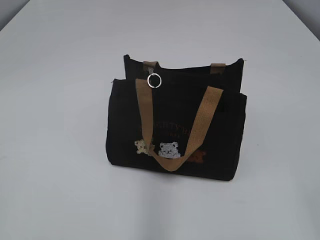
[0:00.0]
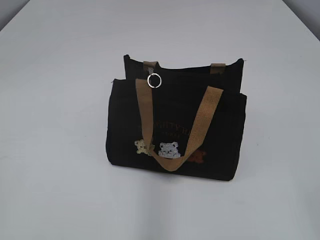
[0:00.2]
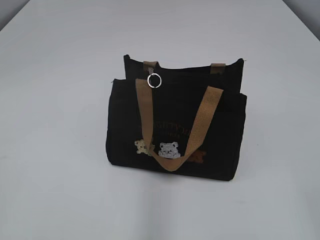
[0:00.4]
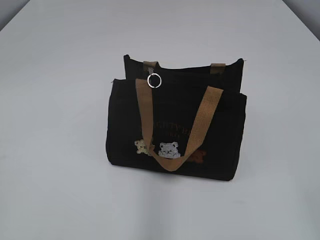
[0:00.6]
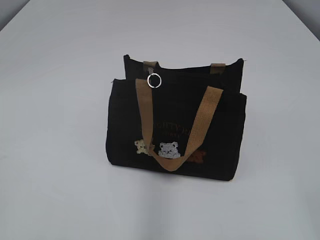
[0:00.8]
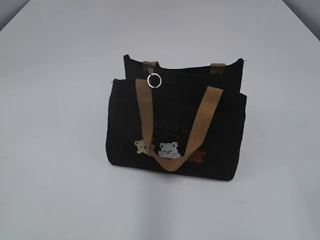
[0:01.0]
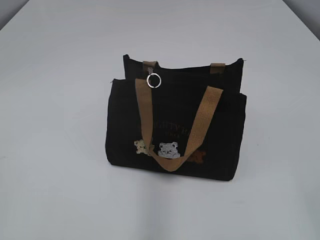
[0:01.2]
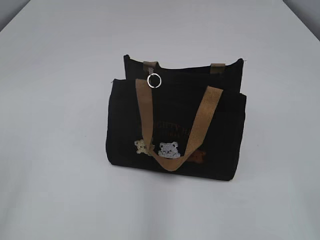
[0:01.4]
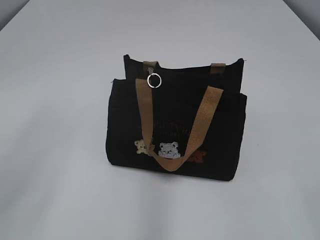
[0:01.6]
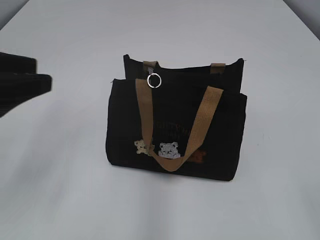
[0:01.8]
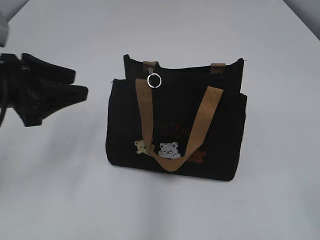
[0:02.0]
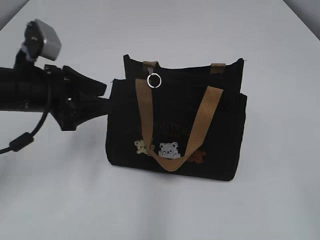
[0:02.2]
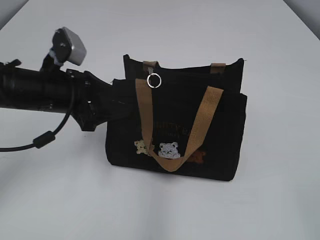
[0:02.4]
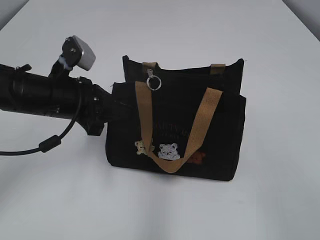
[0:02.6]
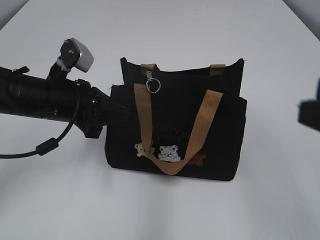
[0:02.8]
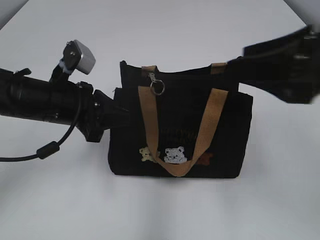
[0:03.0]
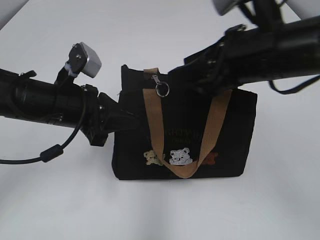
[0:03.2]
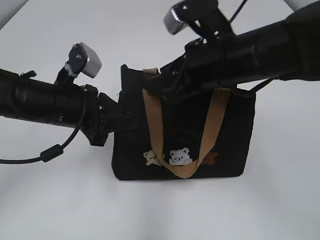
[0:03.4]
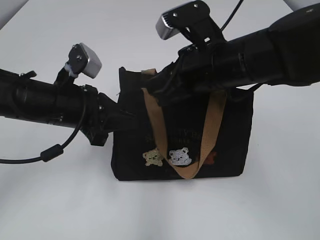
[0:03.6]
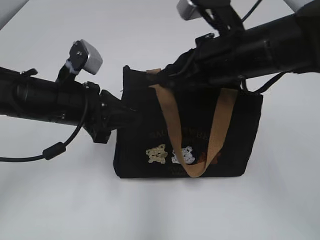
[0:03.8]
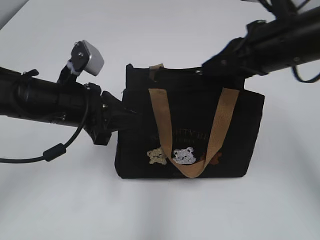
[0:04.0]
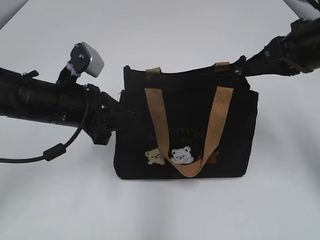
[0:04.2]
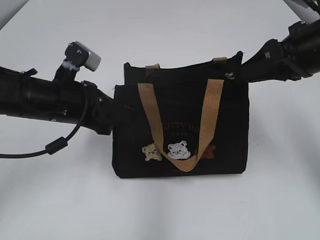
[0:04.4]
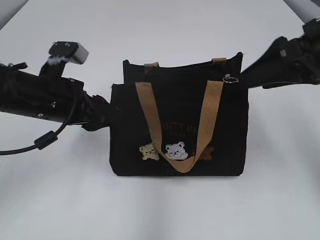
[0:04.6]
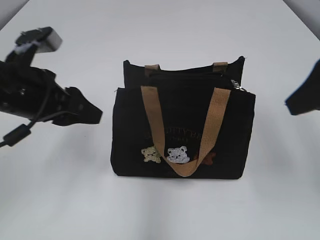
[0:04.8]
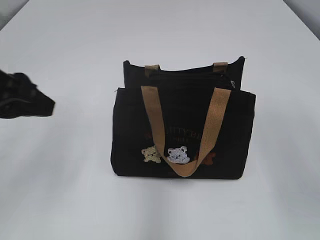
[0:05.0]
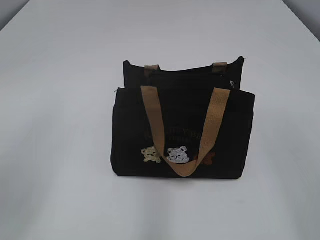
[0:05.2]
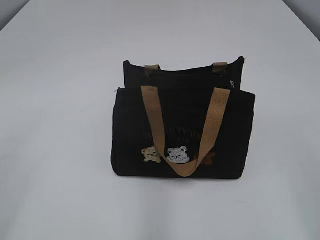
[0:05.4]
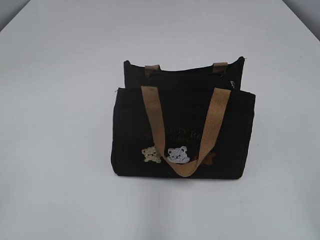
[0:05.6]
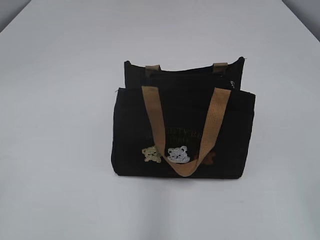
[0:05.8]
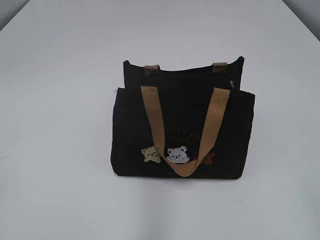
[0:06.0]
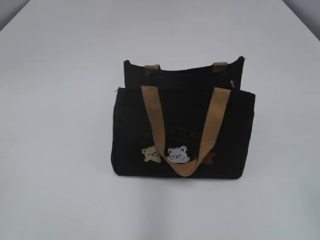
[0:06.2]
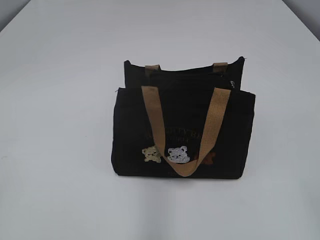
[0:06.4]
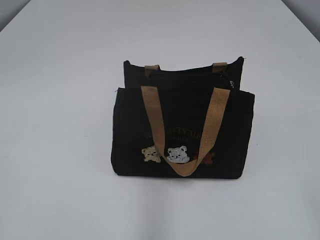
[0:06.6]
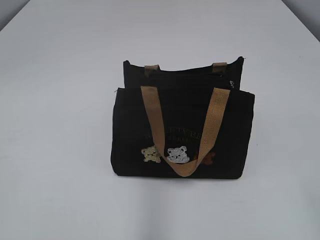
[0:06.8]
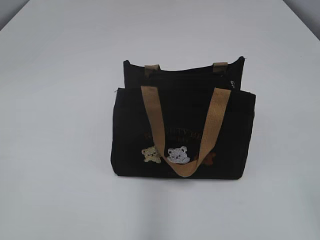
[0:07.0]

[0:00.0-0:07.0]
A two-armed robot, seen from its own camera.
Step, 0:00.0 to 0:04.4: Pull open the zipper with your right hand.
0:01.4 to 0:02.8: The left gripper moves forward, to the right and downward, roughly 35 cm, and closes its fingers. Meanwhile the right gripper goes approximately 10 cm forward.
0:02.8 to 0:04.2: The right gripper moves forward, roughly 20 cm, and closes its fingers.
0:04.2 to 0:05.6: The right gripper moves backward, some 25 cm, and opens its fingers. Meanwhile the left gripper travels backward, to the left and upward by roughly 35 cm, and opens.
